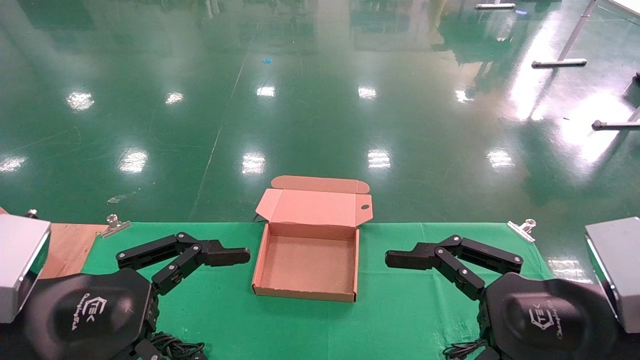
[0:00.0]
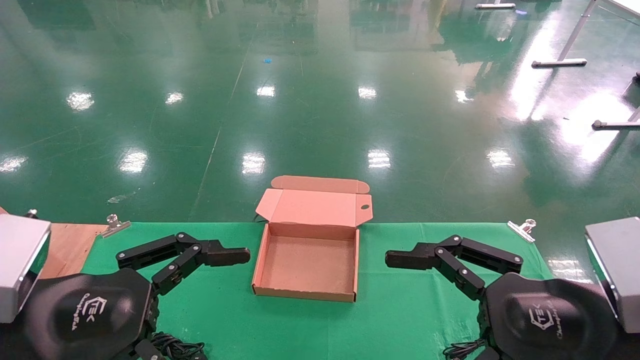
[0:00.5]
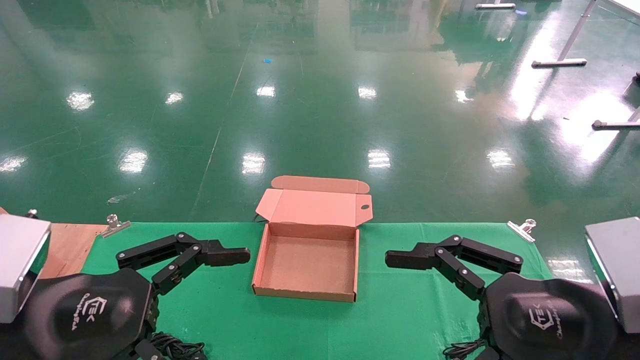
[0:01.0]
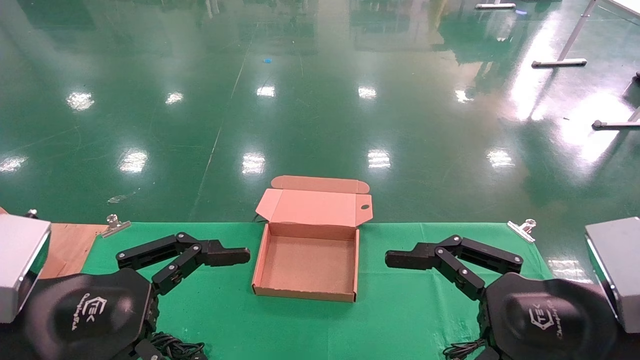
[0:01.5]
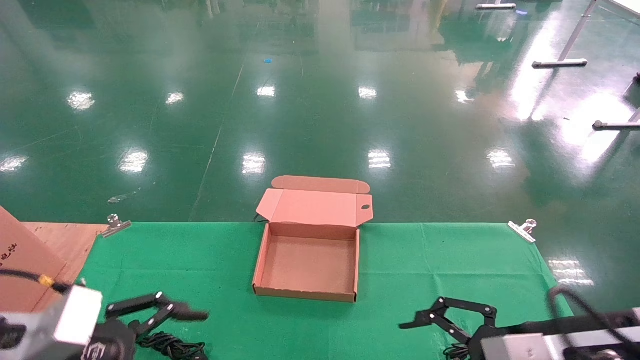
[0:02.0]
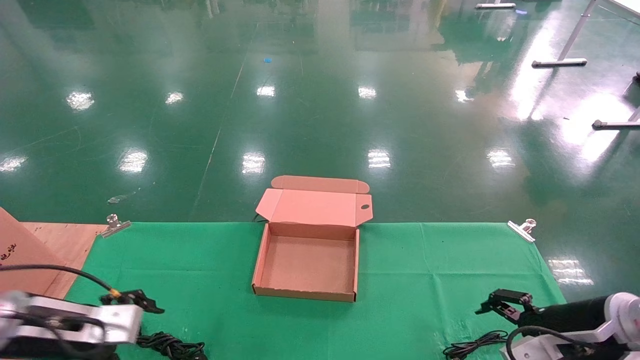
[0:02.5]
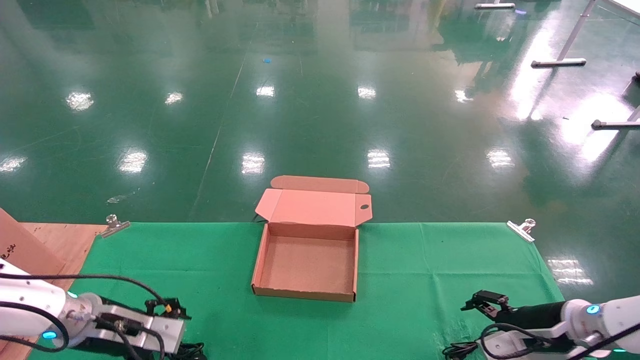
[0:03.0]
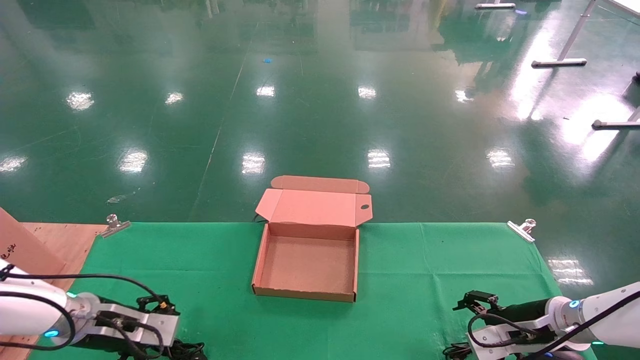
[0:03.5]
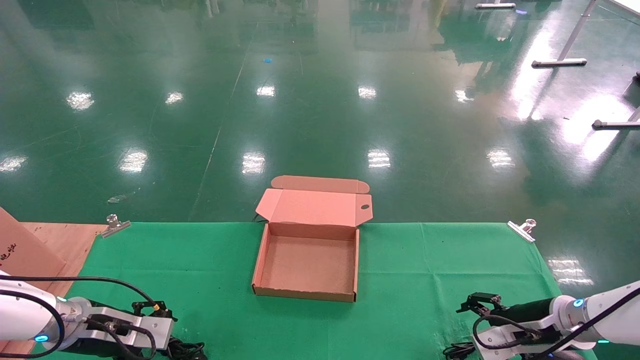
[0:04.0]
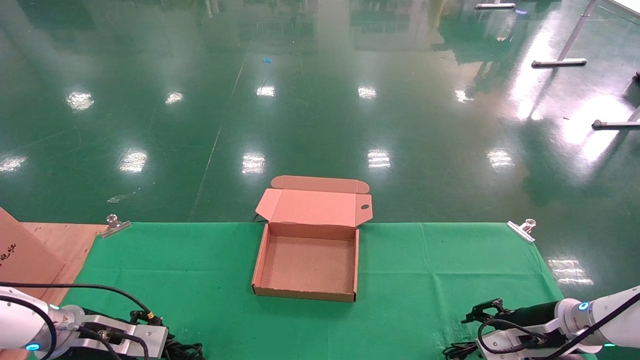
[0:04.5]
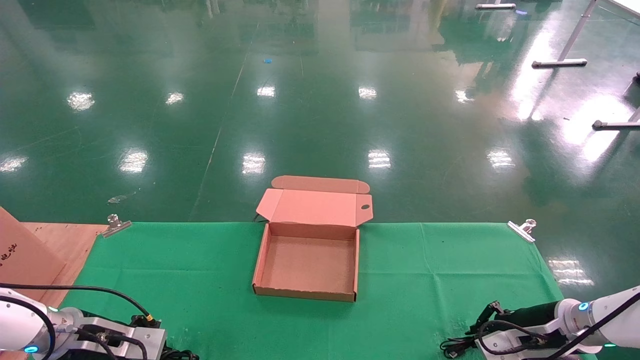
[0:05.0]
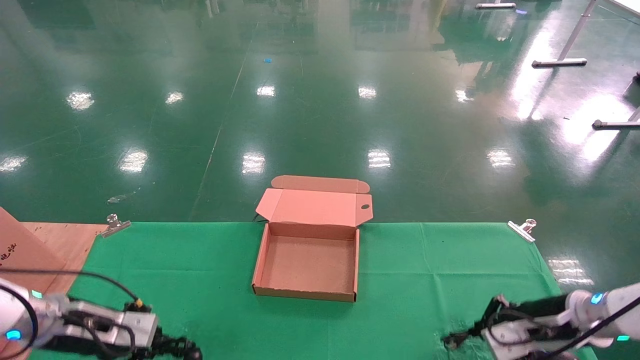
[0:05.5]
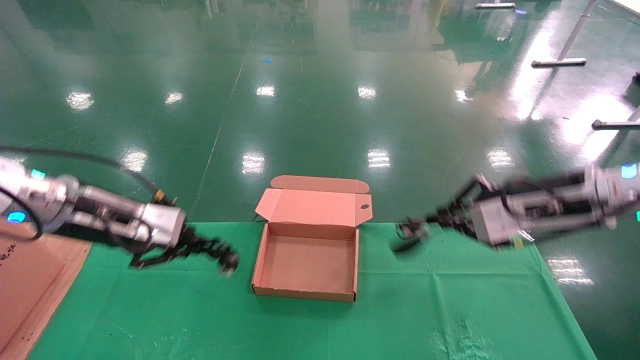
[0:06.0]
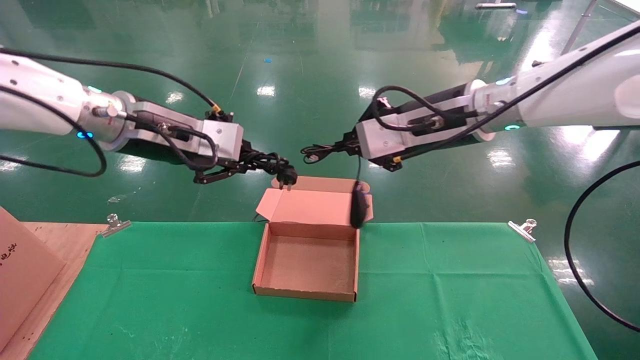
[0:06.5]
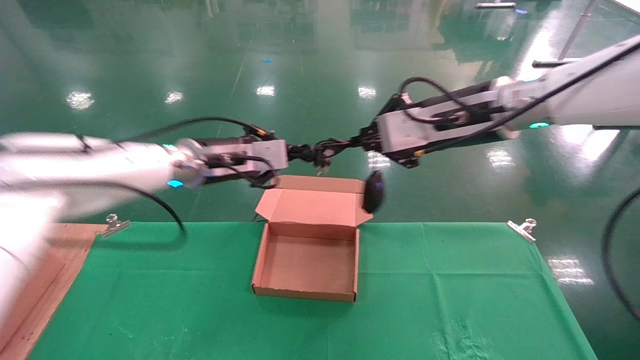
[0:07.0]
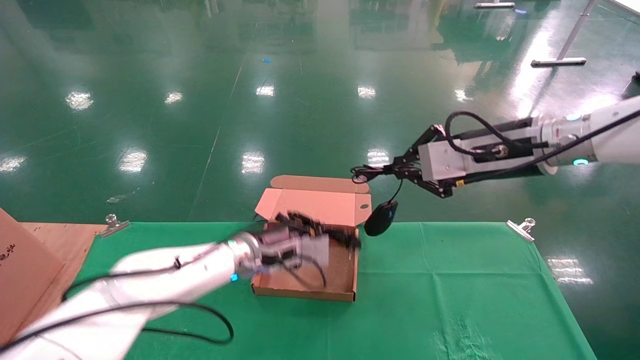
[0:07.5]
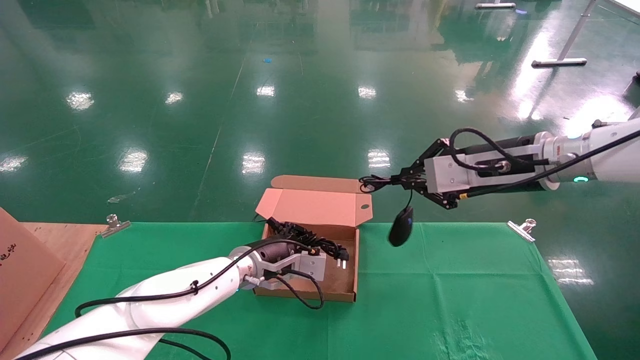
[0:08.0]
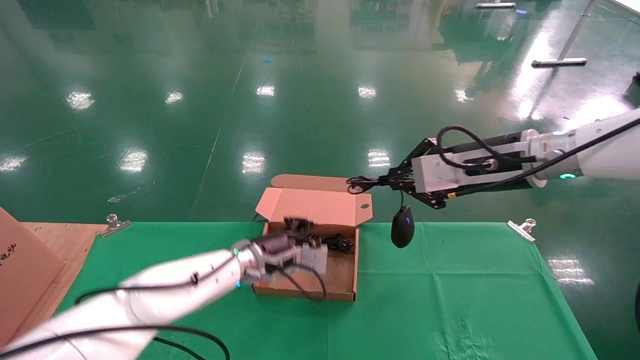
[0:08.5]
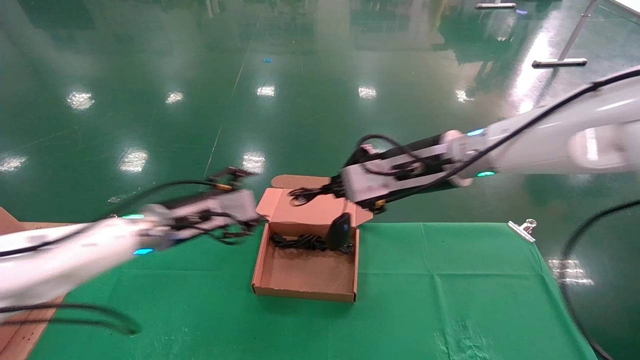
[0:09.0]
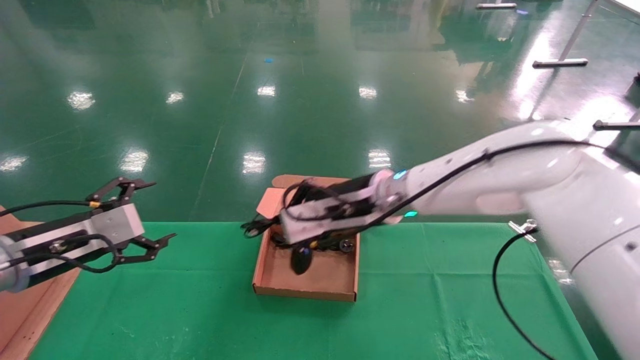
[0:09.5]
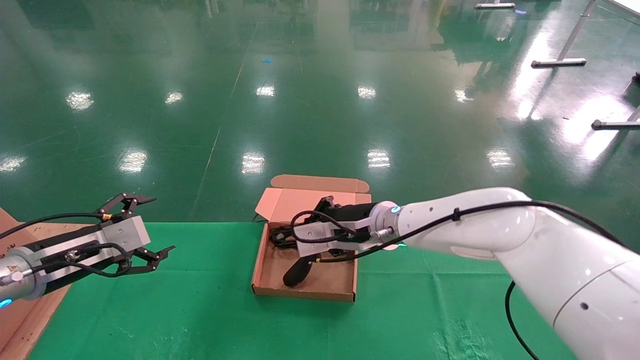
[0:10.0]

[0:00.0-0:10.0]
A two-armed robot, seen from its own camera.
Step, 0:01.5 to 0:06.0: Grab and lift both the mouse and power cord from the accessory packaging area at the same time.
0:00.0 to 0:02.0: The right gripper heads forward, covering approximately 5 cm, while the left gripper shifts about 10 cm downward and to the left.
0:02.0 to 0:04.0: The left gripper travels forward and downward by roughly 20 cm. Meanwhile the right gripper travels forward, downward and to the right by about 20 cm.
0:04.0 to 0:06.0: The grippers both shift upward by about 20 cm. The left gripper closes. Meanwhile the right gripper closes its fingers.
0:06.0 to 0:08.0: The right gripper travels to the left and back again, roughly 10 cm each way, while the left gripper moves to the right, downward and forward, approximately 25 cm.
0:08.0 to 0:10.0: The left gripper shifts roughly 30 cm to the left and backward, and opens its fingers; the right gripper goes approximately 20 cm to the left and downward.

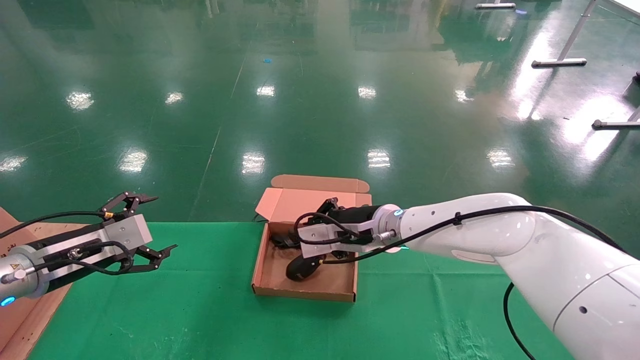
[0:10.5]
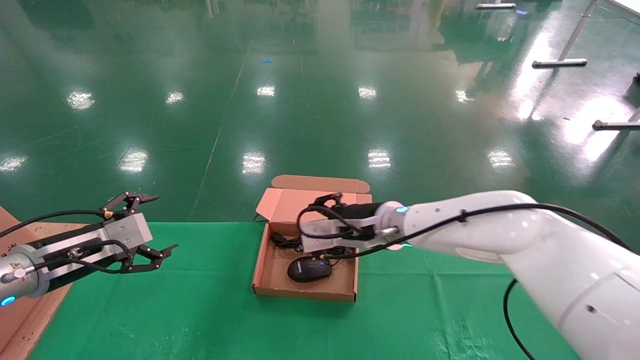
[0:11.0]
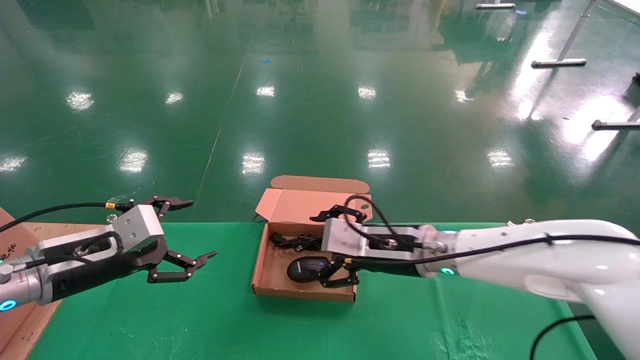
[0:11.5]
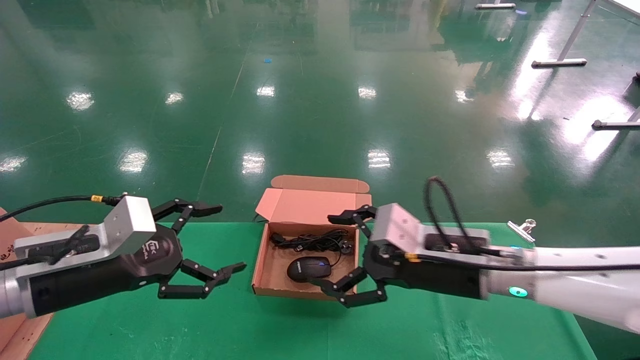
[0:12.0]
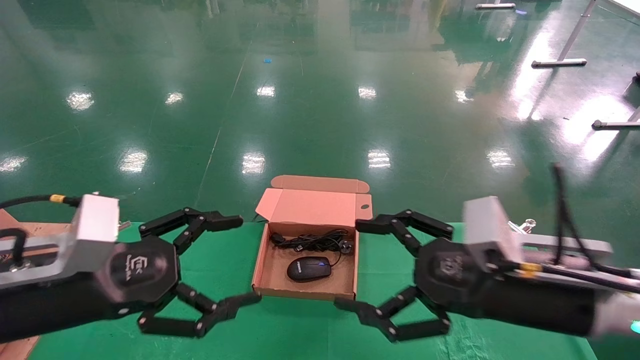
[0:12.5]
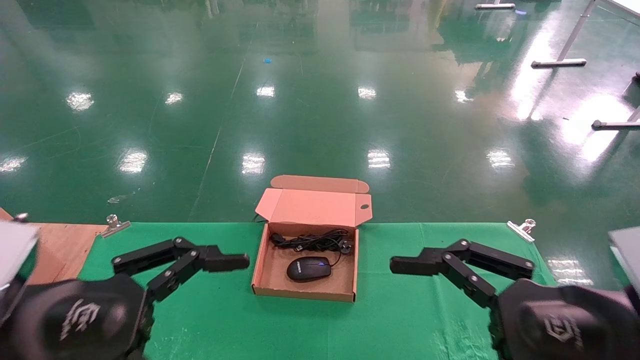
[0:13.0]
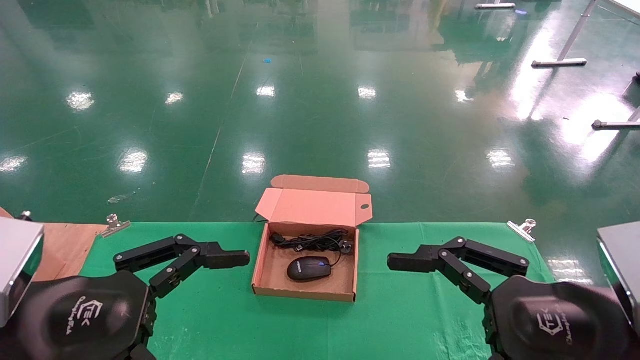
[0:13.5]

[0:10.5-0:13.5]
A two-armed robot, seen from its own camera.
0:10.5 to 0:12.0: The right gripper is displaced backward and to the right by roughly 15 cm, and opens, while the left gripper travels to the right and backward by roughly 10 cm.
0:12.0 to 0:13.5: The right gripper travels backward and to the right by about 20 cm, while the left gripper travels backward by about 10 cm.

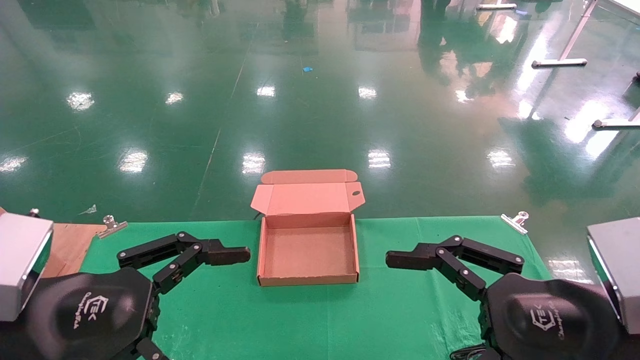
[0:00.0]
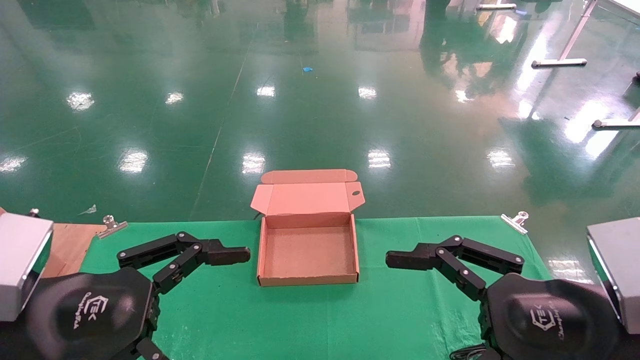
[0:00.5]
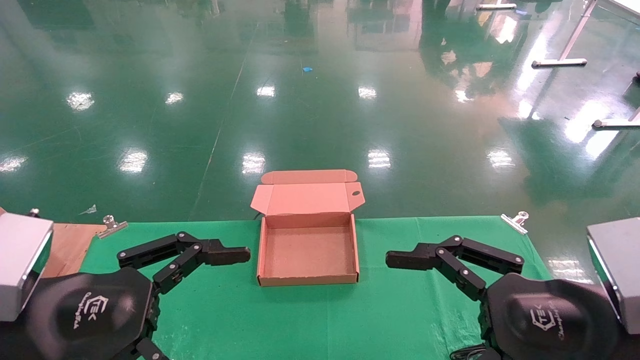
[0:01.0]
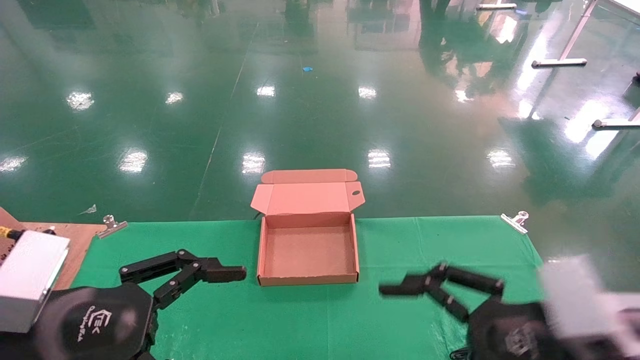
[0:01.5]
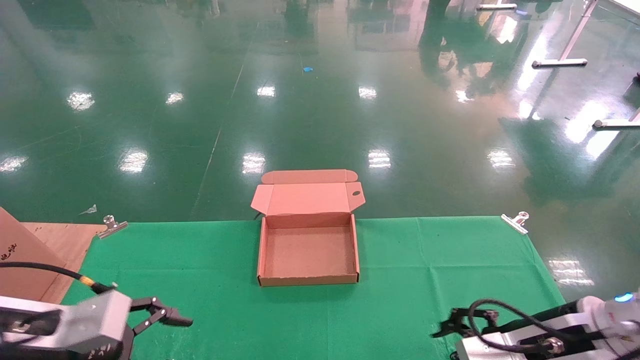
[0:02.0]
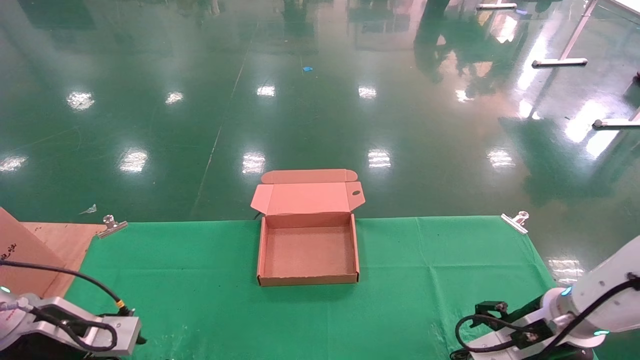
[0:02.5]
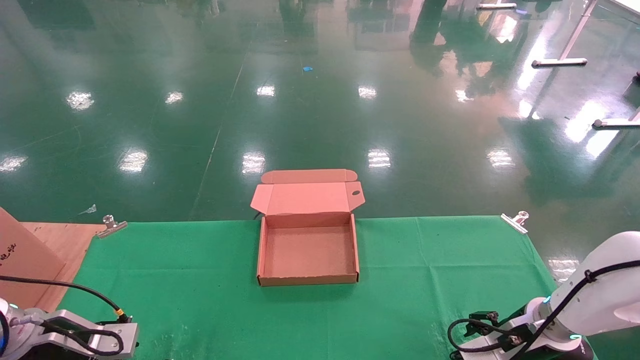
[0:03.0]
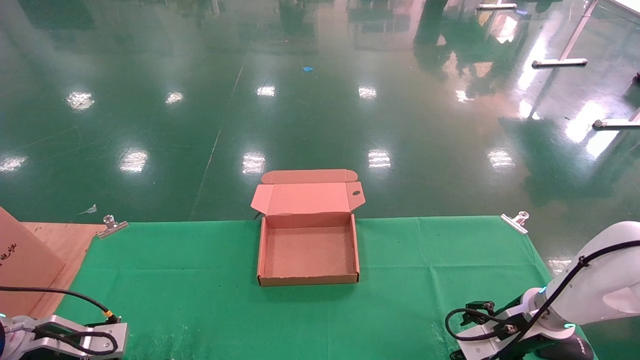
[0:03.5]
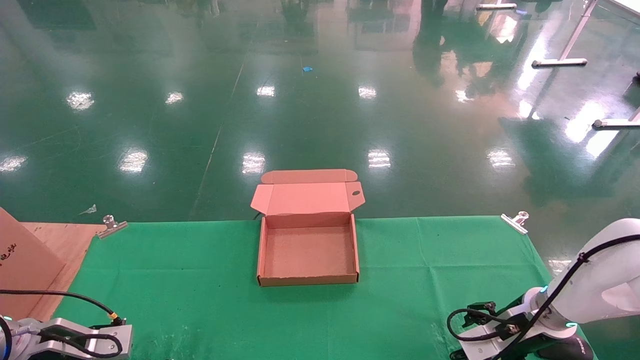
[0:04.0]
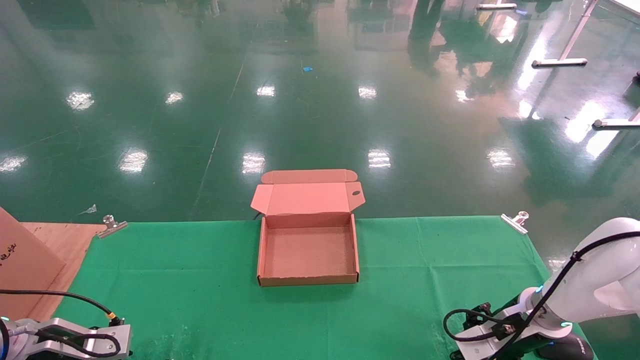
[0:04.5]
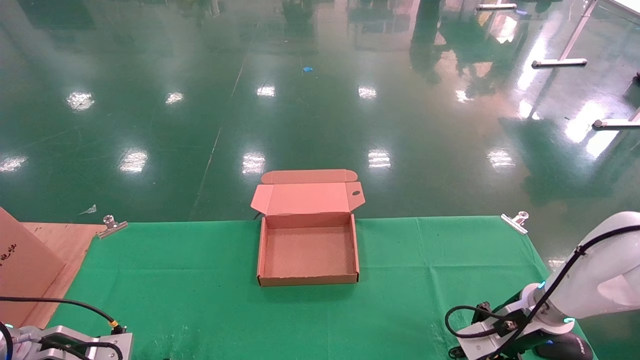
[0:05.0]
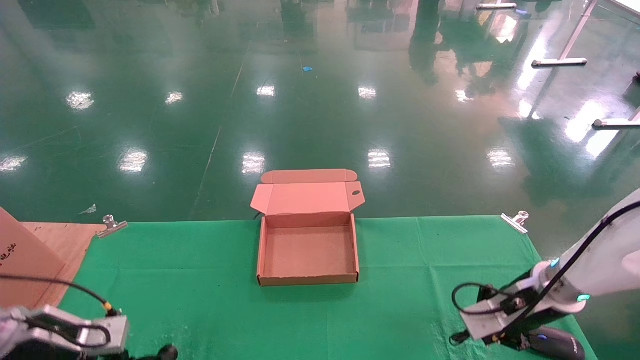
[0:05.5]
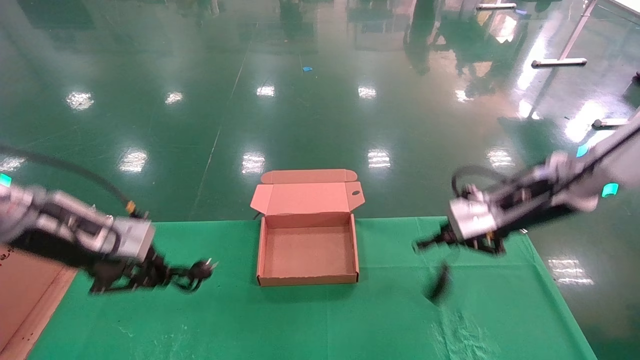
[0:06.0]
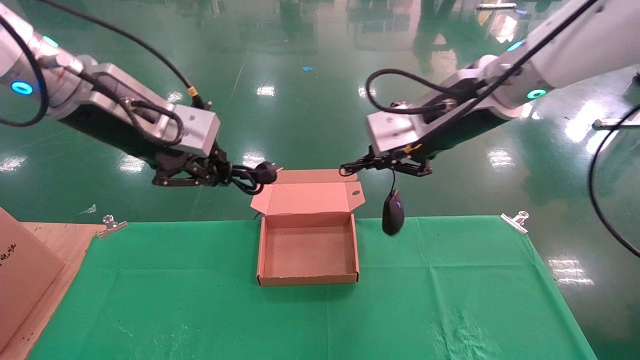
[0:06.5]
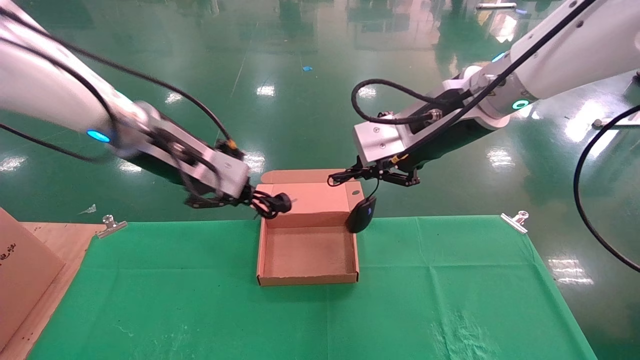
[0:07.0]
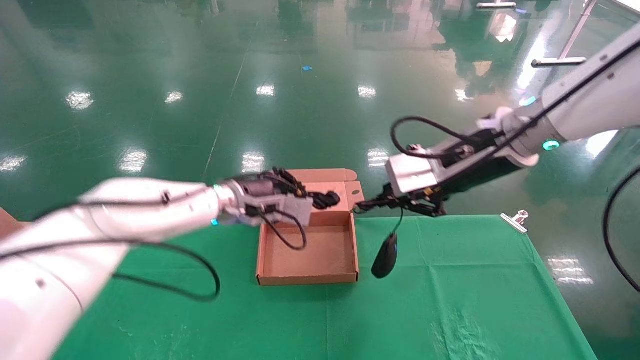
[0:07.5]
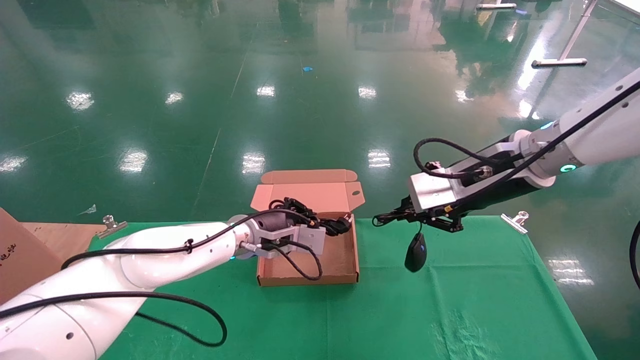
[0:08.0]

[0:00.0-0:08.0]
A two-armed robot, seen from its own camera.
Step, 0:01.5 to 0:05.5: Grab and lift both the mouse and power cord from the accessory packaging area at the same time.
0:00.0 to 0:02.0: The right gripper moves forward and downward, approximately 10 cm. The left gripper heads forward, downward and to the left, covering about 10 cm.
0:02.0 to 0:04.0: The right gripper shifts approximately 15 cm forward and downward, while the left gripper moves downward, forward and to the left, some 15 cm.
0:04.0 to 0:06.0: The grippers both shift upward by about 20 cm. The right gripper closes. The left gripper closes its fingers.
0:06.0 to 0:08.0: The left gripper heads to the right, forward and downward, covering about 25 cm.
